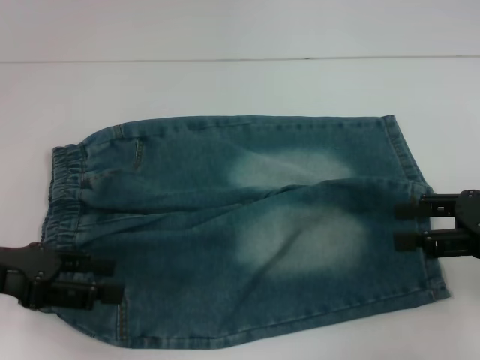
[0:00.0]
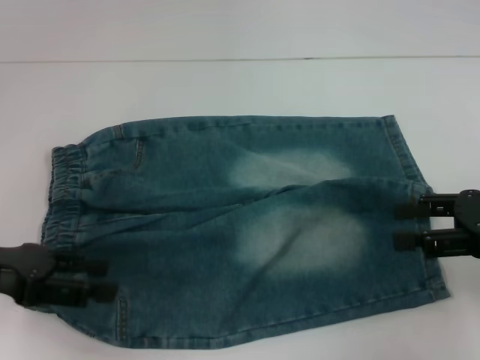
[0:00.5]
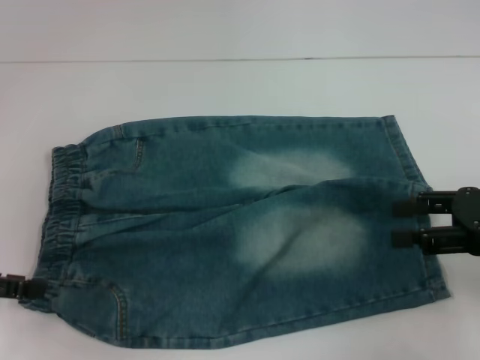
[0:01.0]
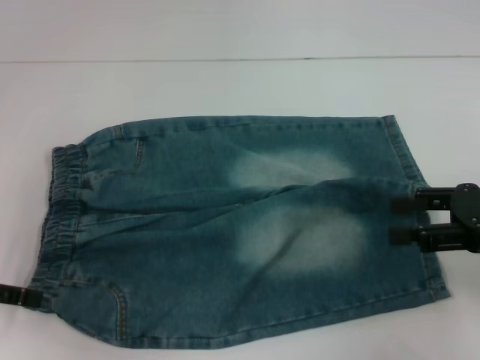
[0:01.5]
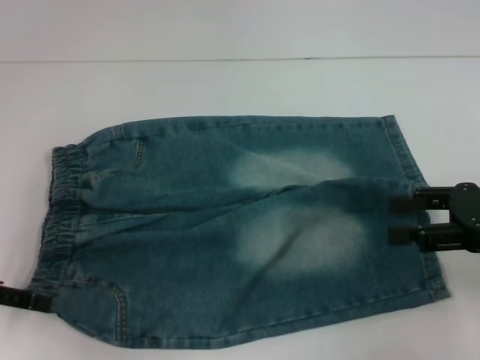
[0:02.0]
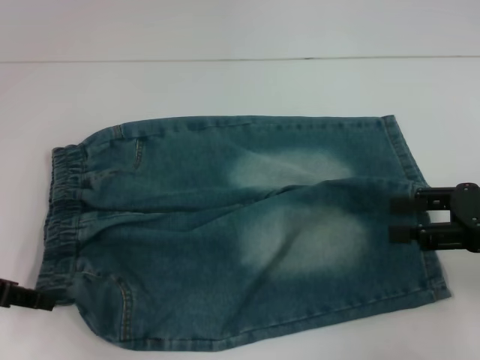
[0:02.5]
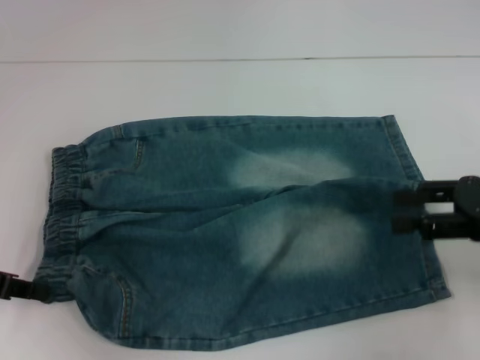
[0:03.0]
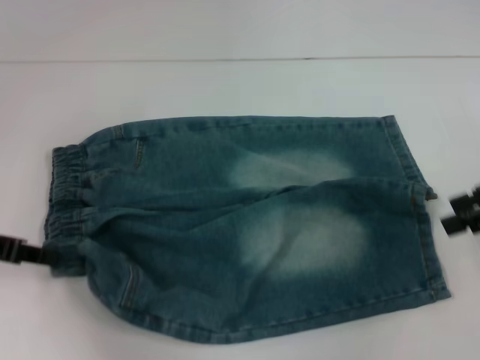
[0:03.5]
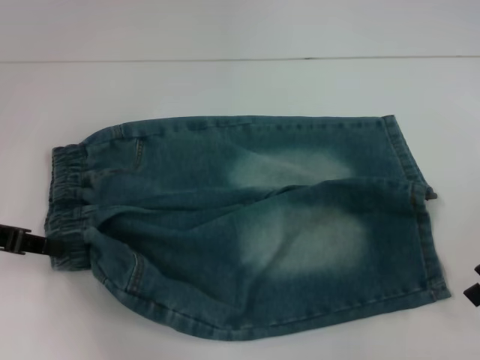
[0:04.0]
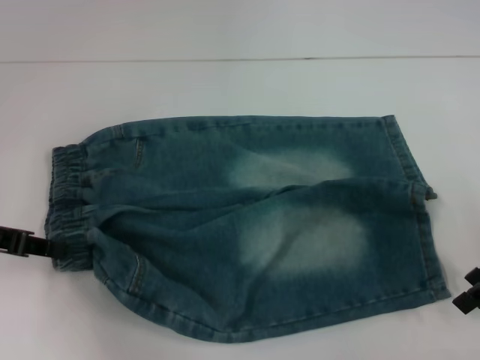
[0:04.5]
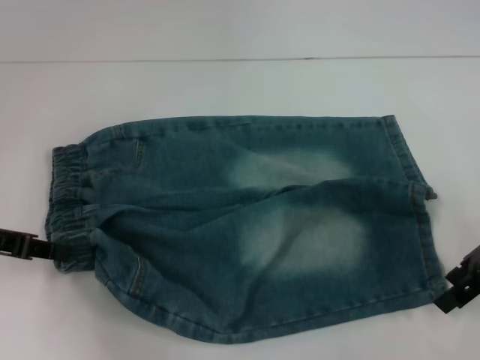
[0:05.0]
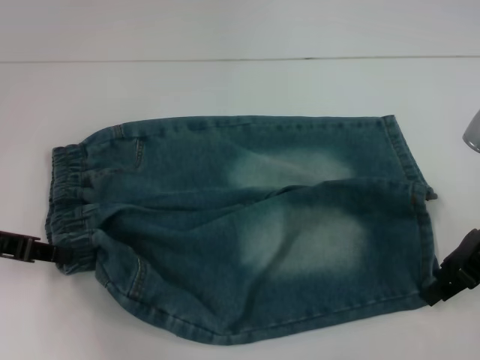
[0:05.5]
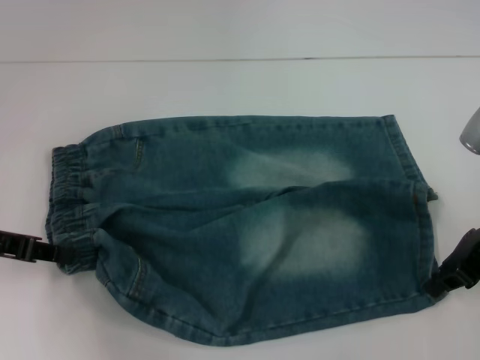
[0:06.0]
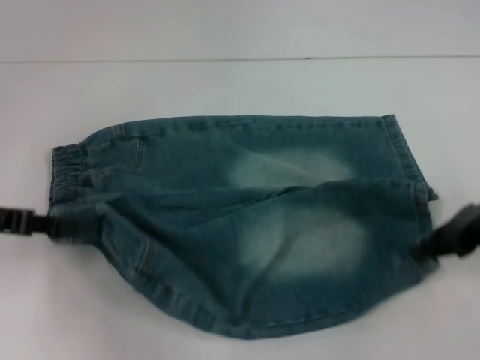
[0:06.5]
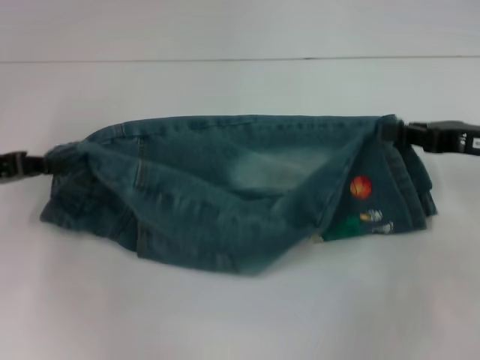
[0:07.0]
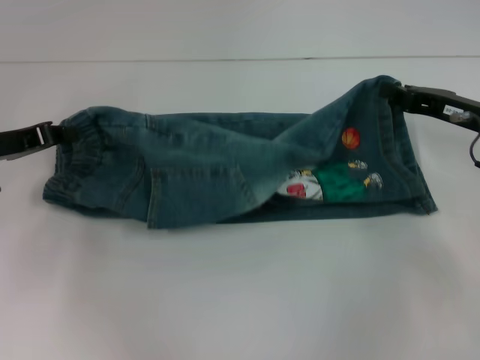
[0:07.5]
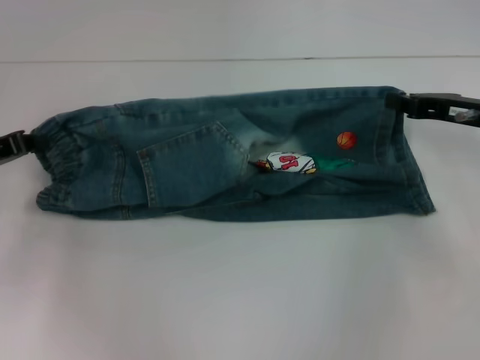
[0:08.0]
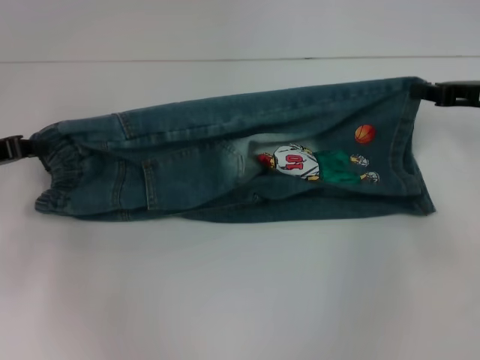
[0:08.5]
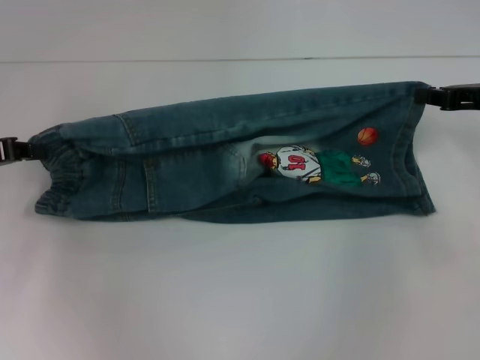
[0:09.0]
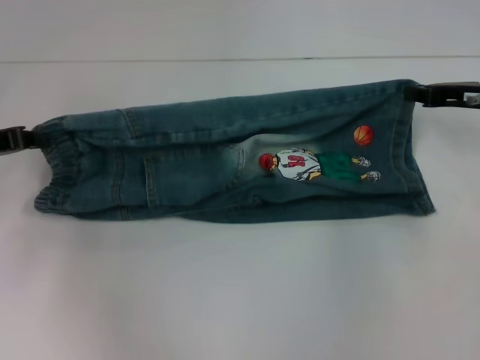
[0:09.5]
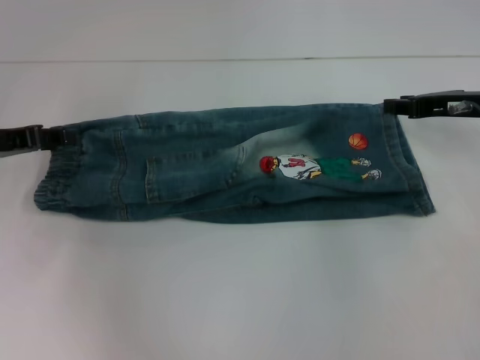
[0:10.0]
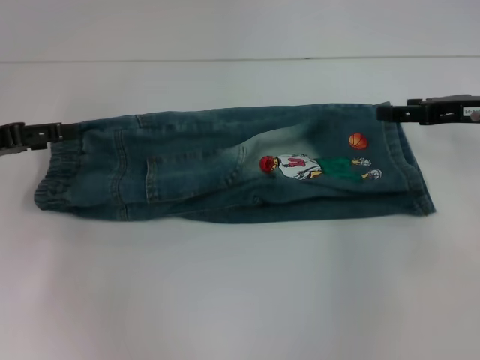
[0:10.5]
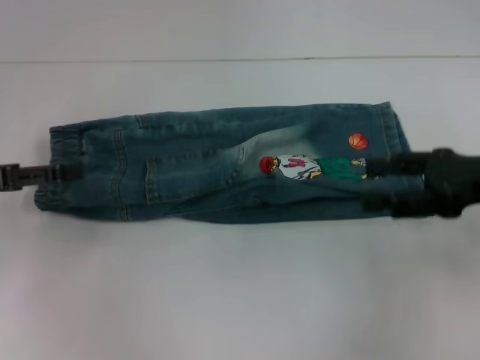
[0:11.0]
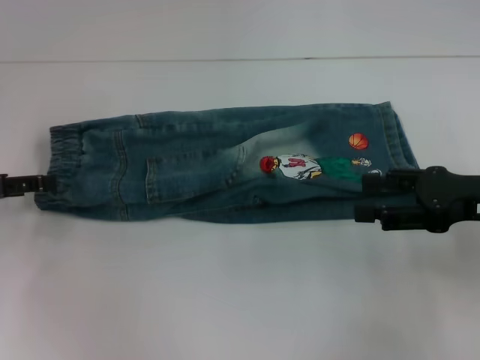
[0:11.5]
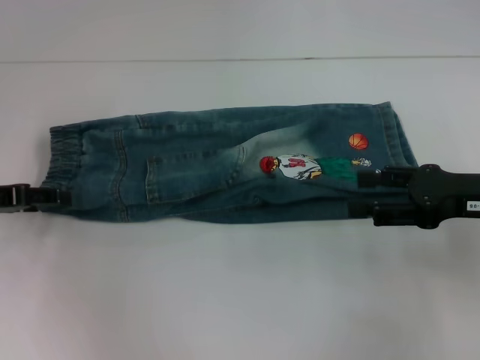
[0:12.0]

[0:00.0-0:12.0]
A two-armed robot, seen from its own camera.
Step, 0:00.0 to 0:03.0: Hold the lower left waistband with your left hand.
Step, 0:03.5 to 0:06.0: Grab the lower right pant leg with your right hand.
Step, 0:06.5 to 0:09.5: Fold upward with your left hand.
0:00.0 to 0:02.0: The left gripper ends up approximately 5 cm from where it was.
0:02.0 to 0:04.0: The left gripper closes its fingers.
0:04.0 to 0:06.0: The right gripper moves approximately 5 cm, and closes.
0:06.0 to 0:08.0: The right gripper shifts by some 5 cm.
0:08.0 to 0:10.0: The grippers make only small movements.
0:10.0 to 0:12.0: The left gripper opens up, while the right gripper shifts about 10 cm backward, and opens up.

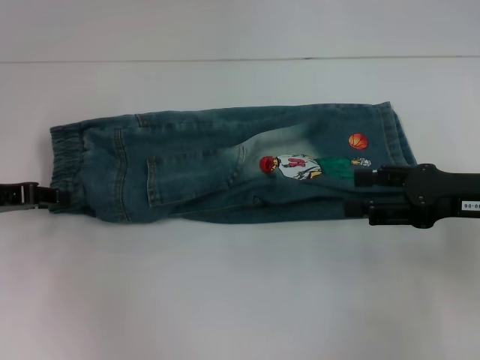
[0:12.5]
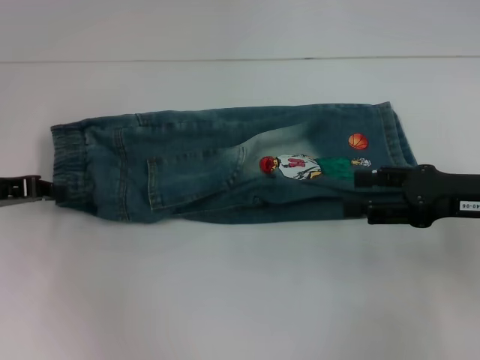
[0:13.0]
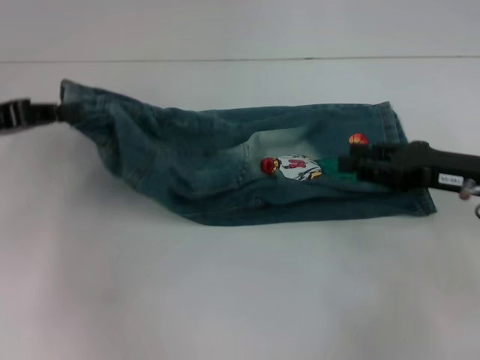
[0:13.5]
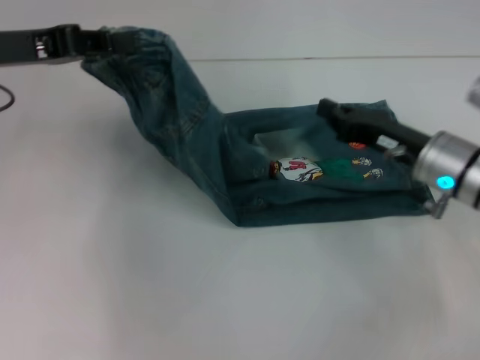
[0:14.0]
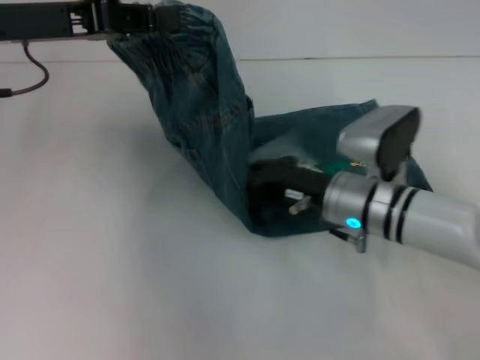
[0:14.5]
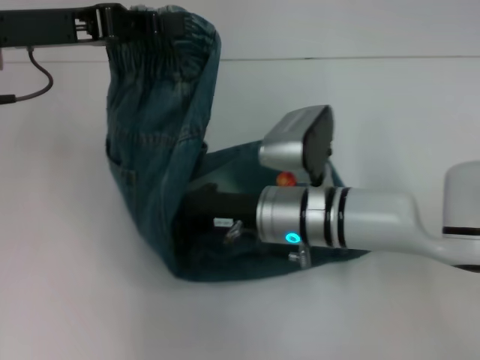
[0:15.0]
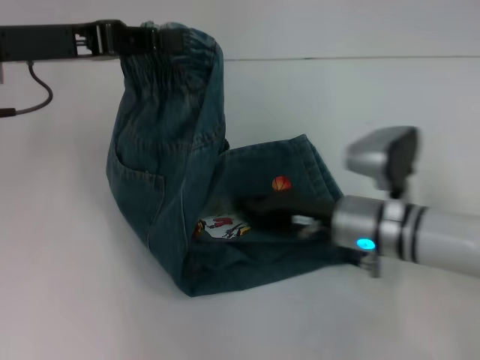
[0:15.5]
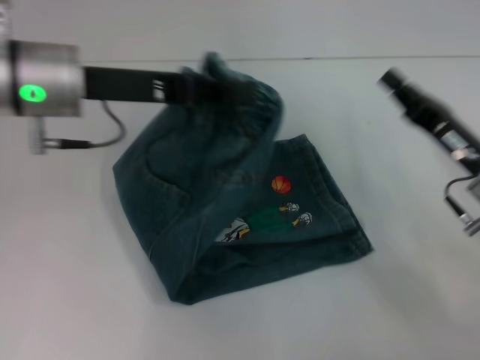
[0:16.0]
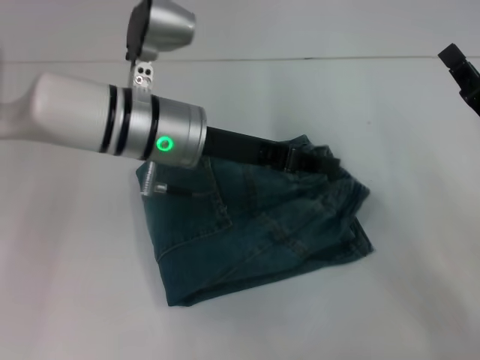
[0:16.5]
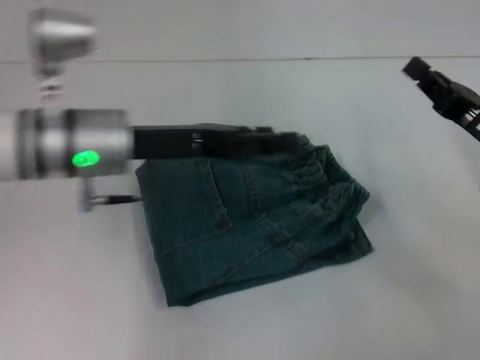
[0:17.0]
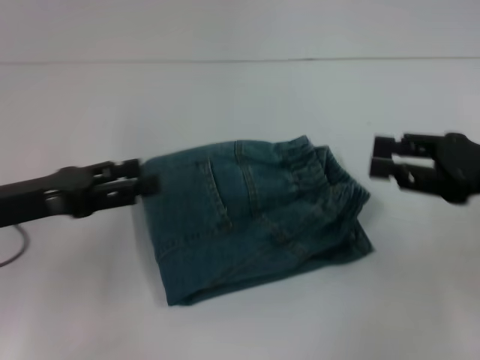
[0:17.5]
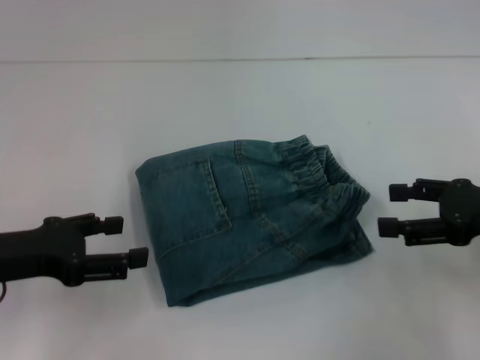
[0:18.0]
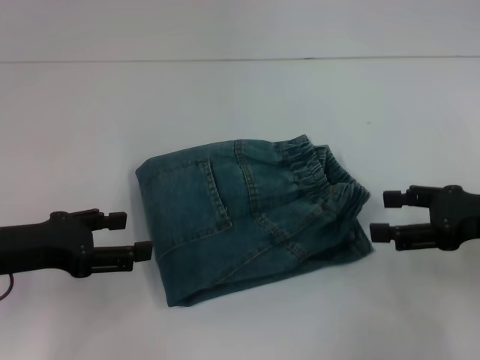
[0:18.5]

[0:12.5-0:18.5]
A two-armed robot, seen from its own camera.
Step, 0:13.5 to 0:15.0: Press the middle of the pants with your right hand.
Step, 0:15.5 to 0:16.0: Fold to the right with your left hand.
0:12.5 to 0:14.5: The left gripper travels upward and to the right by about 15 cm, and closes up, while the right gripper is displaced to the left and downward by some 15 cm, and closes its fingers.
0:14.5 to 0:16.5: The right gripper goes some 15 cm to the right. Meanwhile the left gripper travels to the right and downward by roughly 15 cm.
0:16.5 to 0:18.5: The left gripper goes roughly 20 cm to the left and backward, and opens; the right gripper opens its fingers.

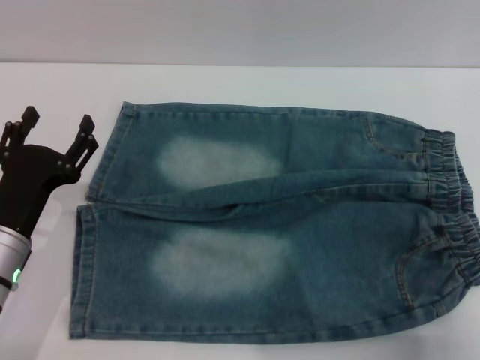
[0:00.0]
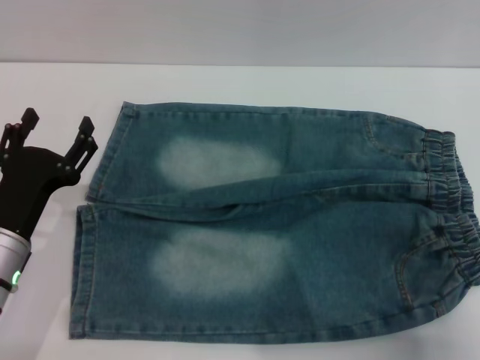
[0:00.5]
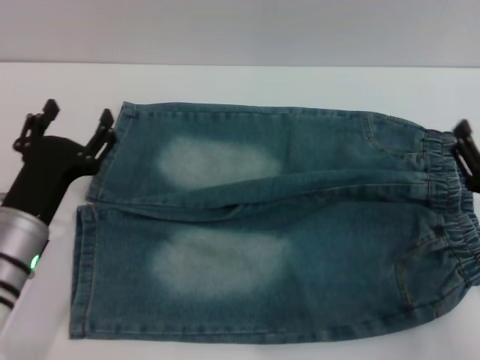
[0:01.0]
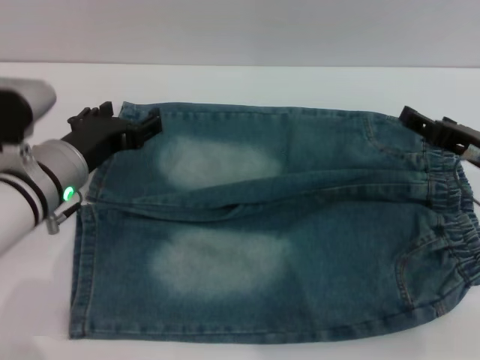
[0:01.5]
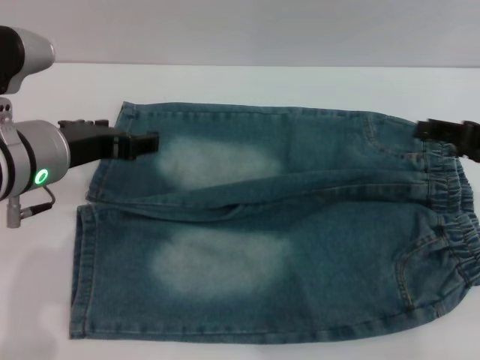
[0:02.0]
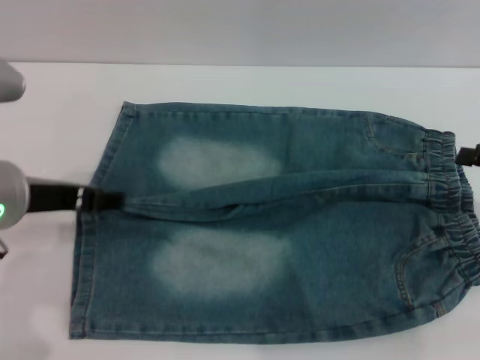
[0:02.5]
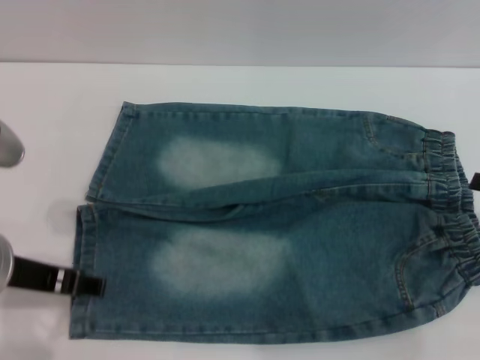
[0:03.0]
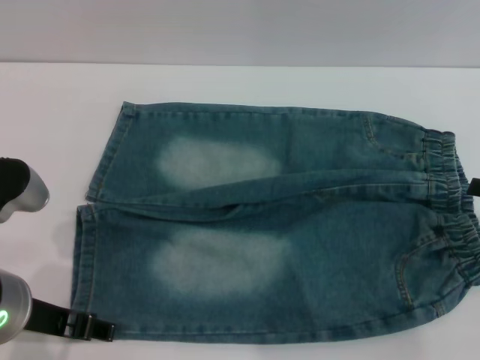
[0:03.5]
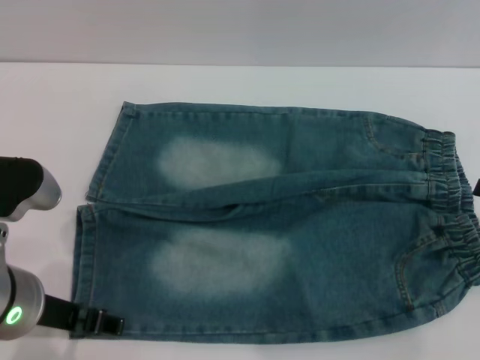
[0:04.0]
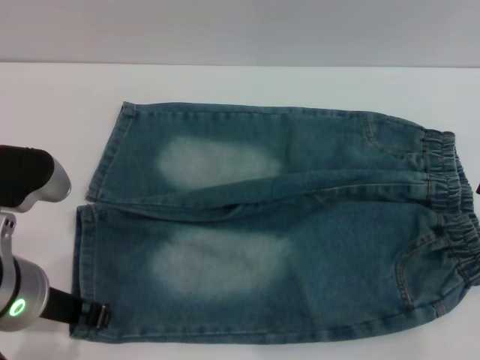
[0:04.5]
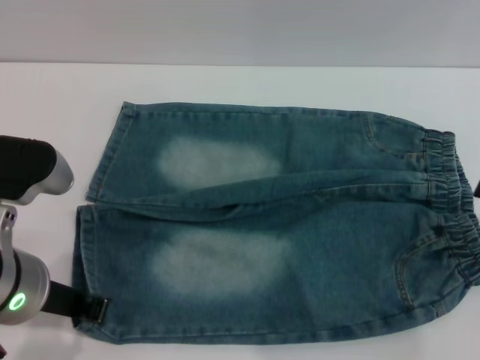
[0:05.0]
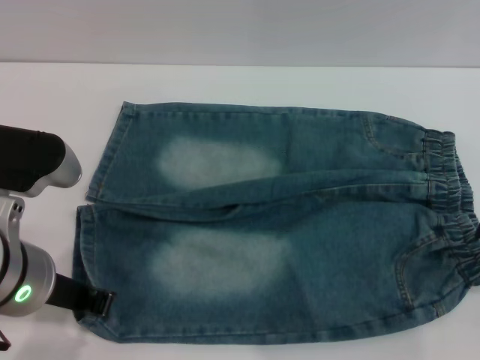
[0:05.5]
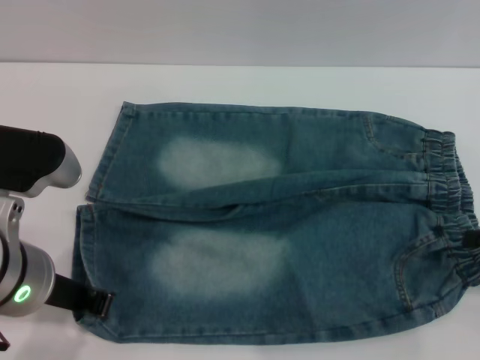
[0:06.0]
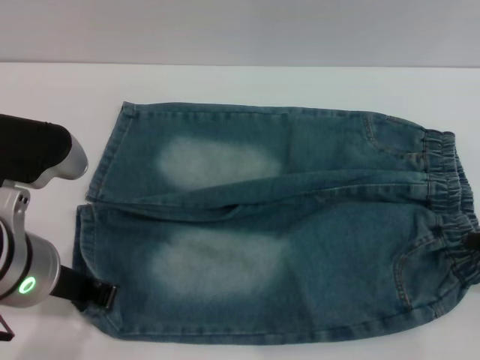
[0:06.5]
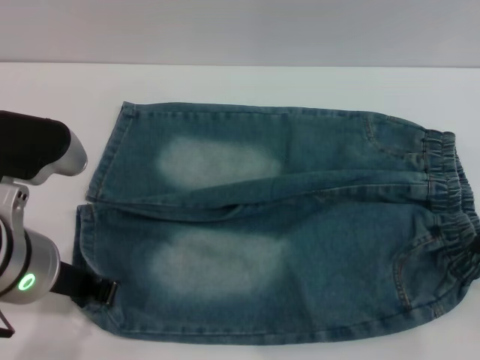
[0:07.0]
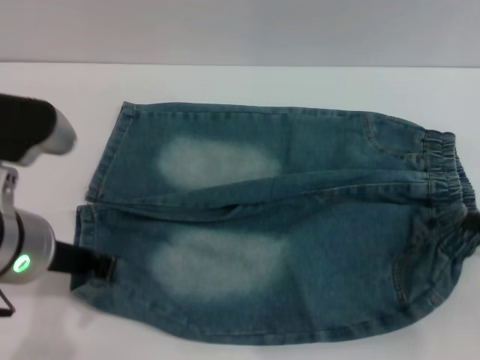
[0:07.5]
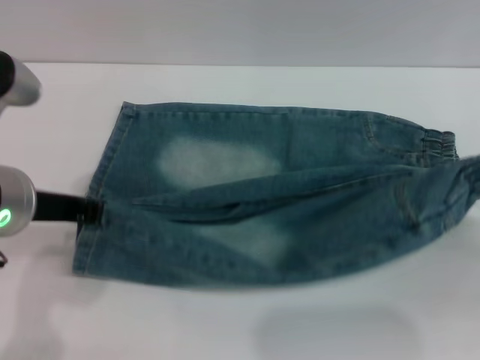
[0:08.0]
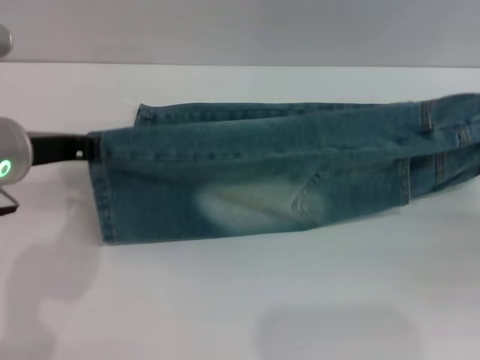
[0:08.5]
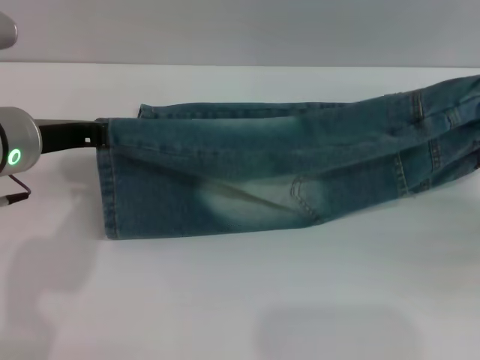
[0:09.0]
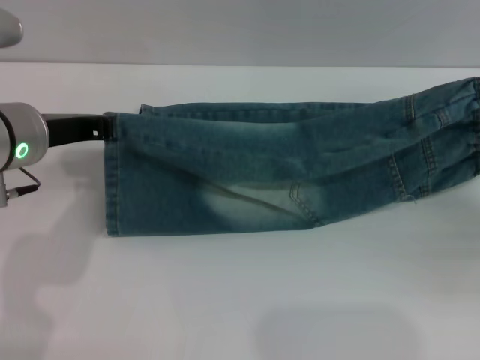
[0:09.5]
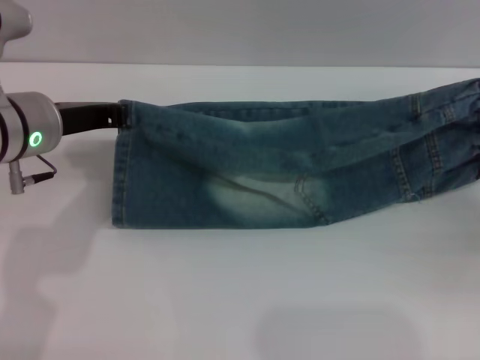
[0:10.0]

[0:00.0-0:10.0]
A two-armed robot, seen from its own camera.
0:00.0 to 0:02.0: The left gripper is displaced upward, forward and to the right by roughly 15 cm. The right gripper heads upward and forward, covering some 15 cm.
0:02.0 to 0:04.0: The right gripper travels to the right and backward by some 10 cm. Meanwhile the left gripper travels backward by roughly 10 cm.
0:04.0 to 0:06.0: The left gripper closes its fingers.
0:06.0 to 0:08.0: The right gripper closes up.
0:08.0 to 0:10.0: The two grippers go some 5 cm forward.
